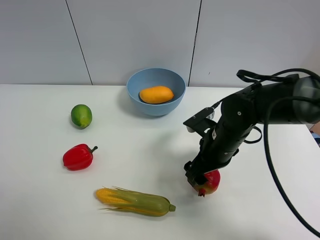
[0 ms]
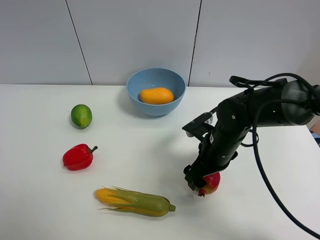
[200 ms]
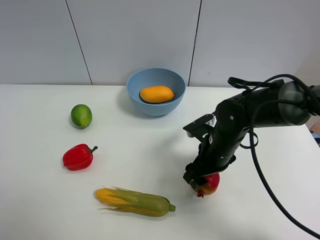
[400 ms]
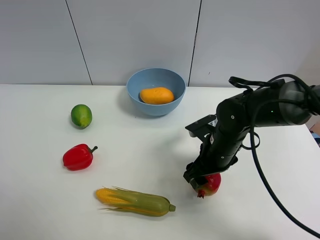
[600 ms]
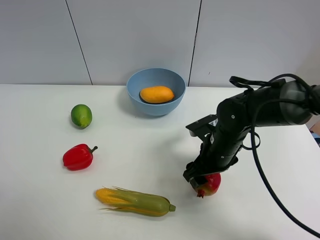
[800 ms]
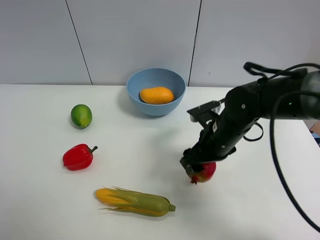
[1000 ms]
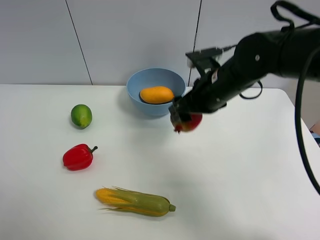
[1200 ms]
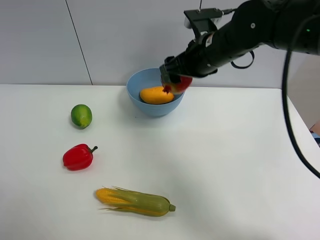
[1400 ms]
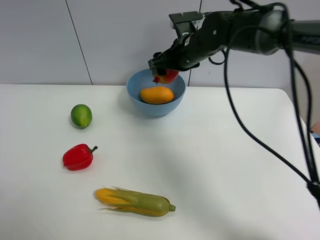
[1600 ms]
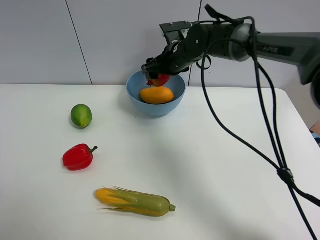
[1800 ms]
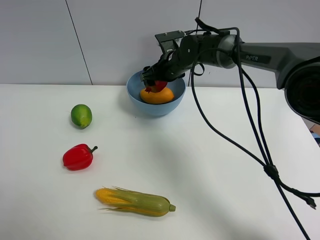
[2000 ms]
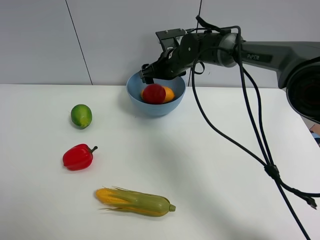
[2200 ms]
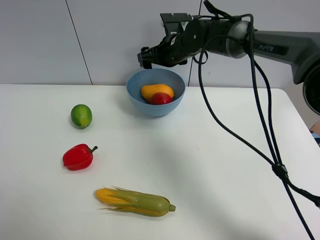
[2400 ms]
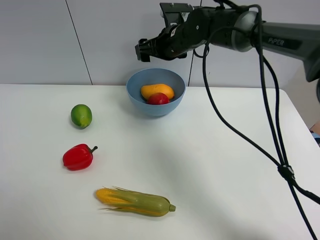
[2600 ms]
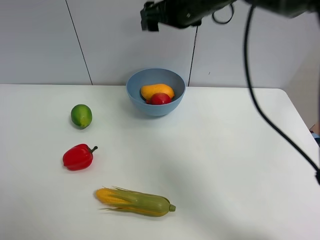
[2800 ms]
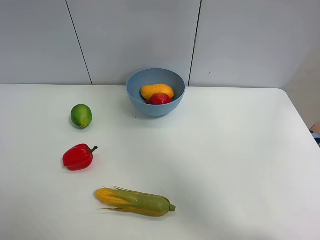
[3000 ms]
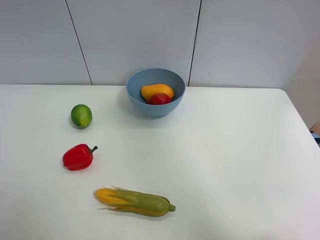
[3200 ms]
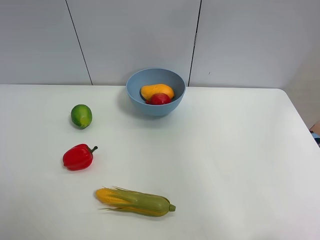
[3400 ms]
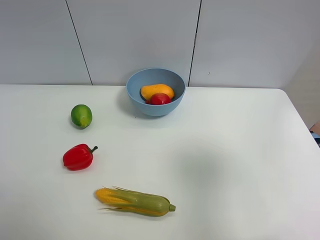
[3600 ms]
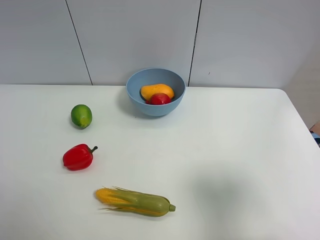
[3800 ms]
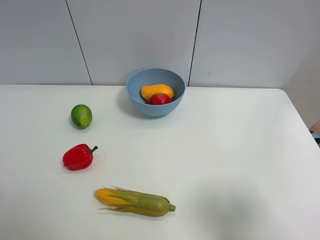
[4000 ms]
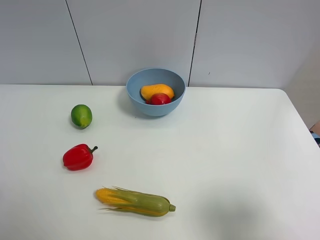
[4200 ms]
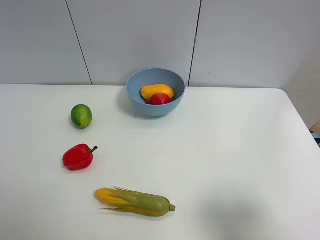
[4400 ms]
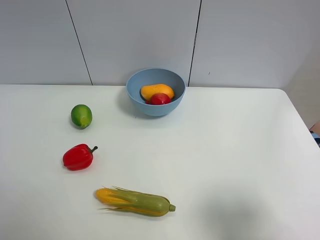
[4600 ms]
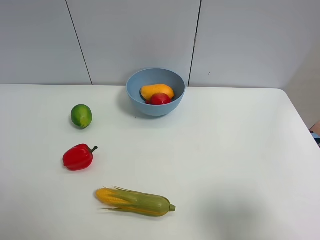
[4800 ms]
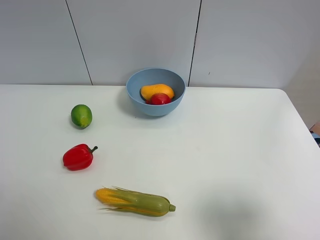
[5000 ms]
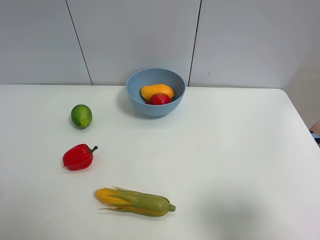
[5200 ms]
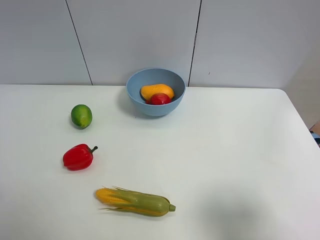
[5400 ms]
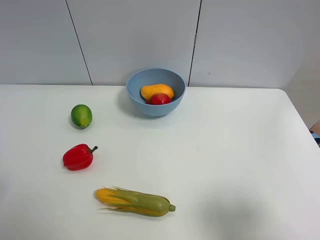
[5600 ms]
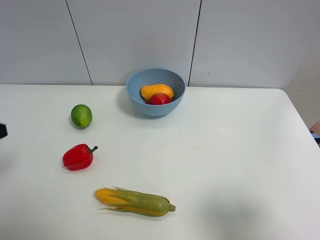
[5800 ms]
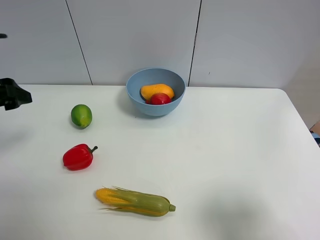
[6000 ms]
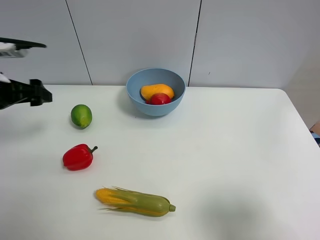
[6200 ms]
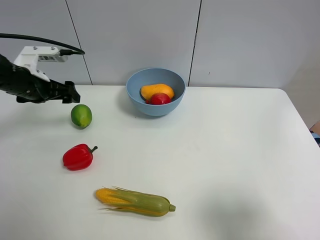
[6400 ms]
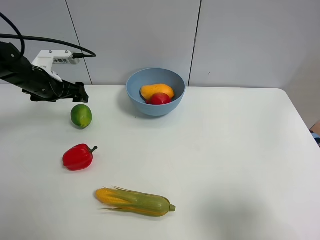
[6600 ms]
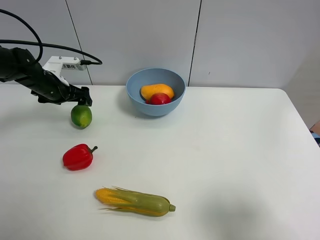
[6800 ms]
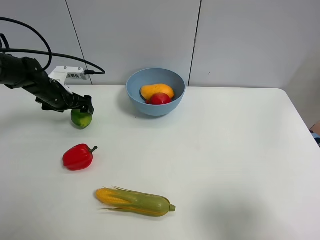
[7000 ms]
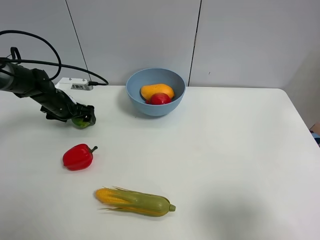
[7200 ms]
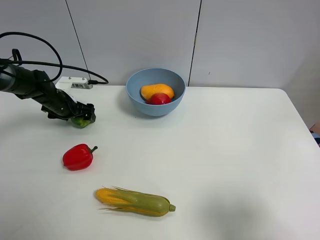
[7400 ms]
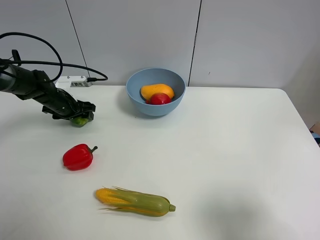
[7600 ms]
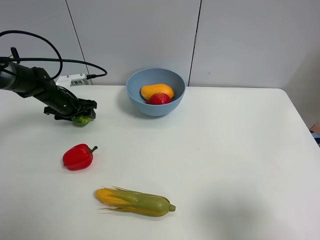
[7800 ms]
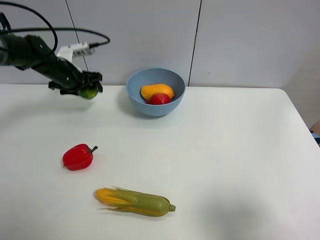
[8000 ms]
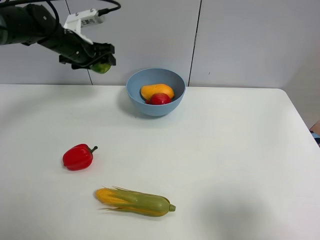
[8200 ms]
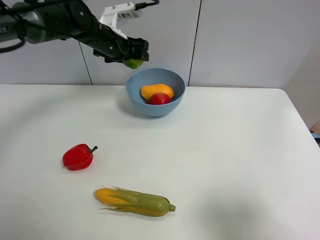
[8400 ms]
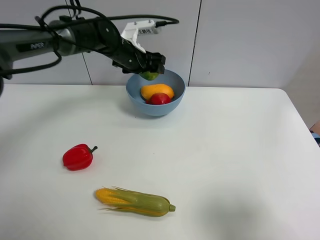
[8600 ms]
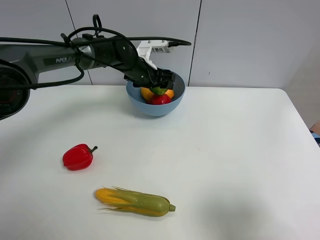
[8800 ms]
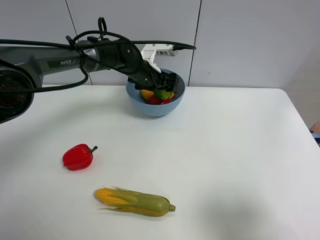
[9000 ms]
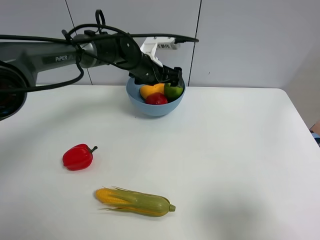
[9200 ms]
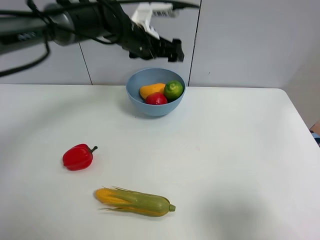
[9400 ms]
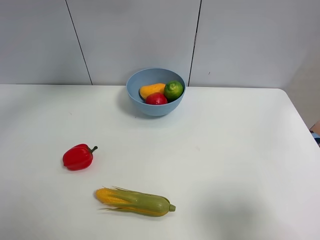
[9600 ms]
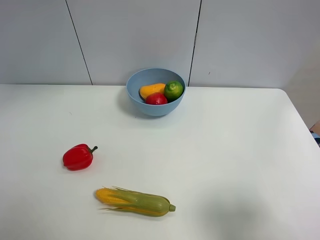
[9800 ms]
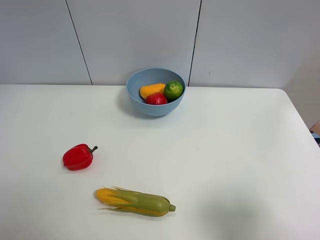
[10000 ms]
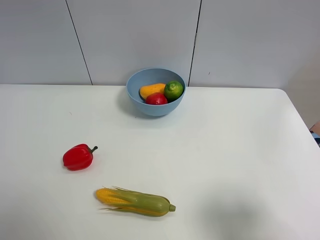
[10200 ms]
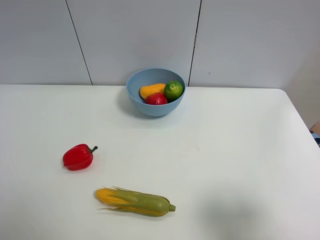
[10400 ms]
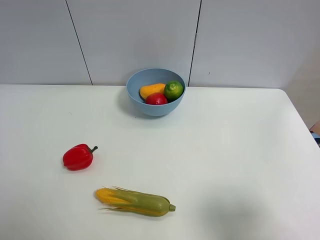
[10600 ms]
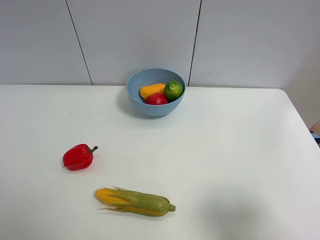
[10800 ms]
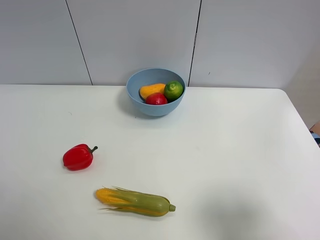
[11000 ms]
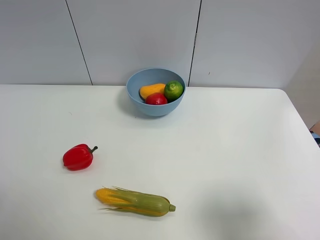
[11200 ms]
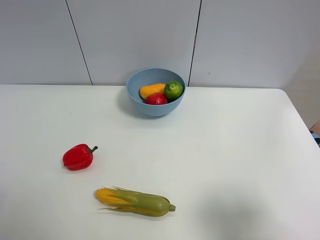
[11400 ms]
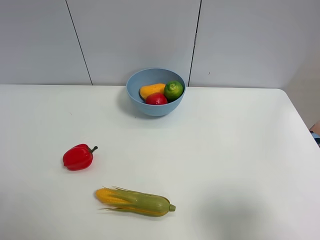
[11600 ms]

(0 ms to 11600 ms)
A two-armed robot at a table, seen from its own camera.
Task of the whole recording: Put the three fruits on the table into a bowl.
Step, 800 ms - 2200 ms: Place the pomegranate in the blue bowl with right gripper.
Step, 2400 ms - 7600 ms: Grasp the green lemon with left gripper.
Step, 7800 ms - 9400 ms: Place the green lemon in the blue bowl with left gripper.
0 ms - 1400 ms: The right gripper heads upward and forward, covering approximately 20 cm, and closes its fingers.
1400 ms - 2800 ms: The right gripper goes about 5 cm upward, and opens up.
2800 ms - 4400 ms: The right gripper moves backward and to the right, roughly 50 cm.
5800 ms - 7200 ms: The left gripper is displaced forward and downward by some 35 cm.
7200 ms - 8800 ms: The left gripper travels to the right by about 25 cm, and closes.
8800 ms - 10200 ms: The left gripper travels upward, to the left and backward by approximately 50 cm, and opens its fingers.
